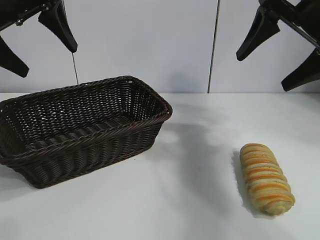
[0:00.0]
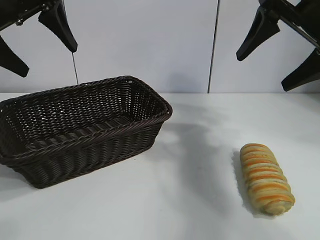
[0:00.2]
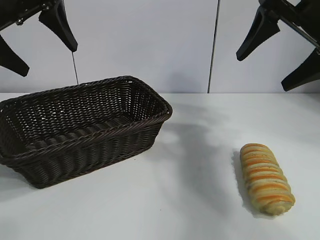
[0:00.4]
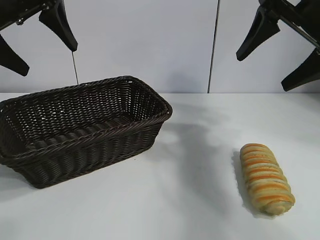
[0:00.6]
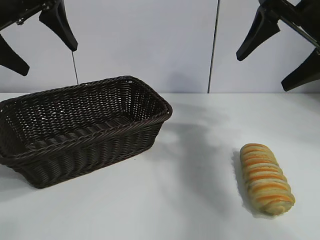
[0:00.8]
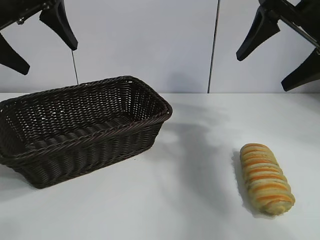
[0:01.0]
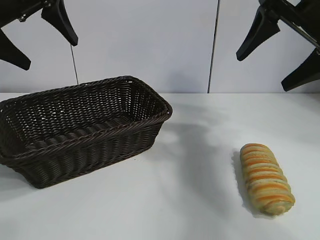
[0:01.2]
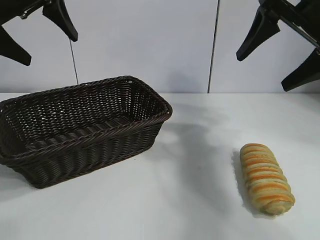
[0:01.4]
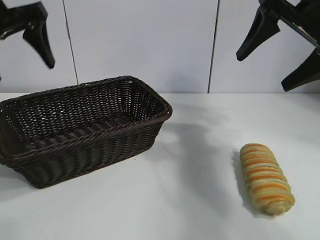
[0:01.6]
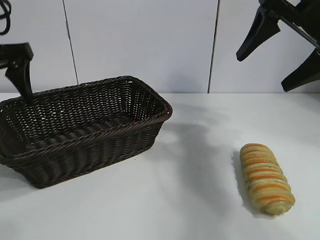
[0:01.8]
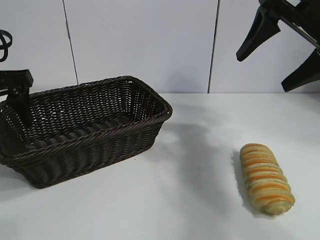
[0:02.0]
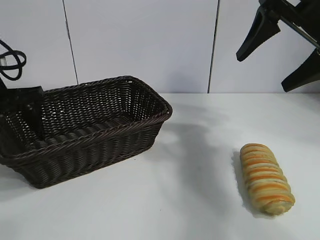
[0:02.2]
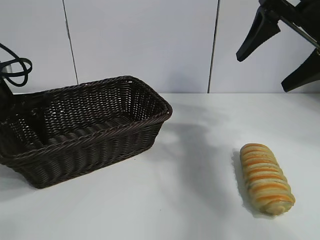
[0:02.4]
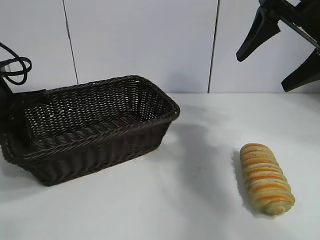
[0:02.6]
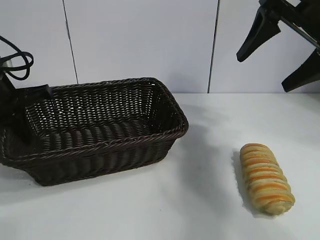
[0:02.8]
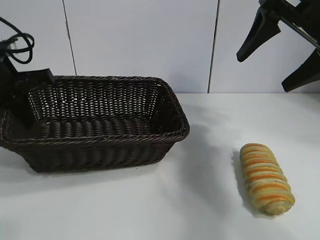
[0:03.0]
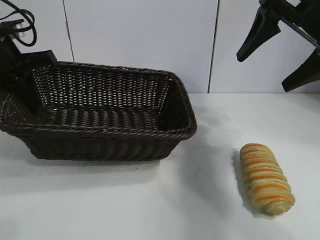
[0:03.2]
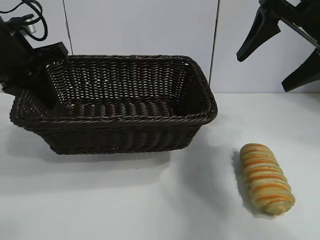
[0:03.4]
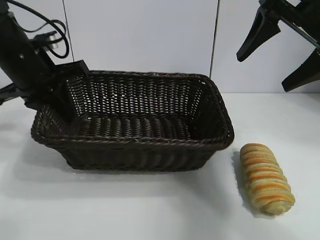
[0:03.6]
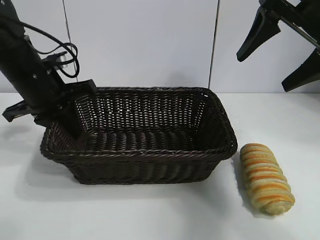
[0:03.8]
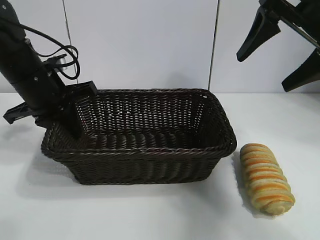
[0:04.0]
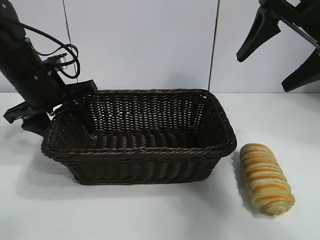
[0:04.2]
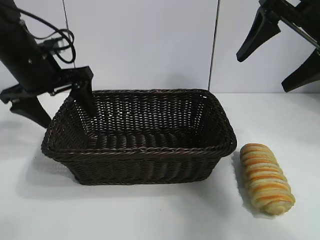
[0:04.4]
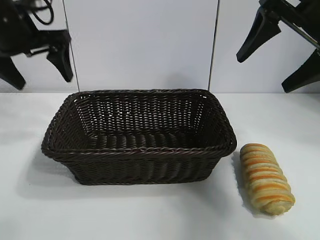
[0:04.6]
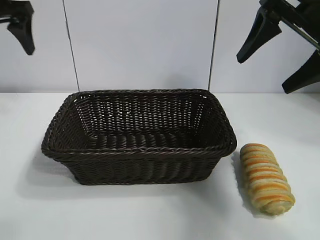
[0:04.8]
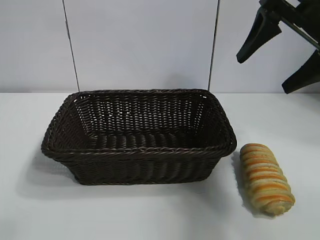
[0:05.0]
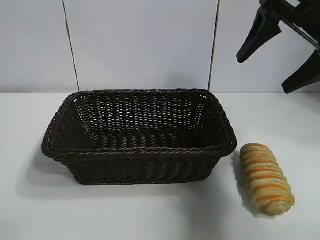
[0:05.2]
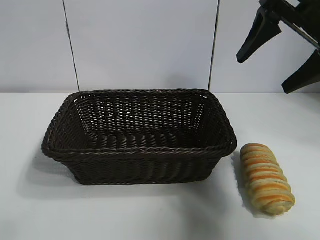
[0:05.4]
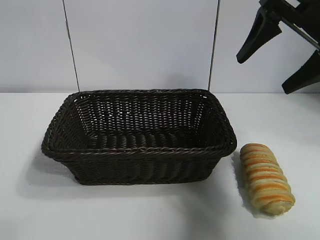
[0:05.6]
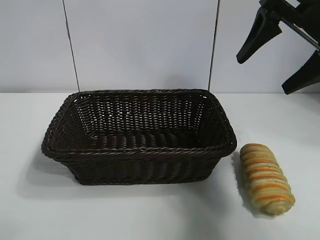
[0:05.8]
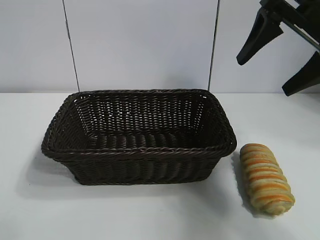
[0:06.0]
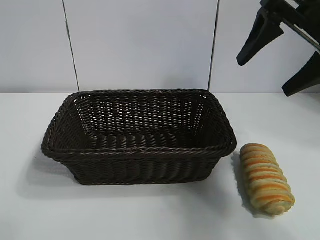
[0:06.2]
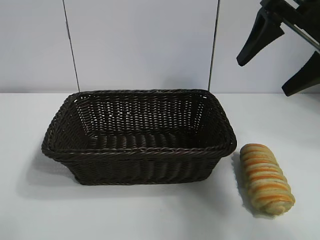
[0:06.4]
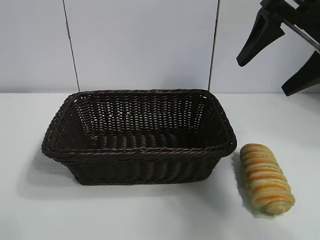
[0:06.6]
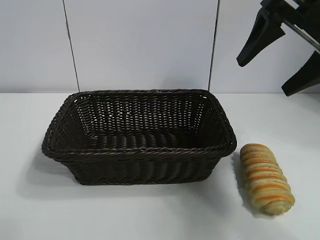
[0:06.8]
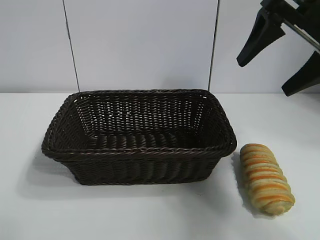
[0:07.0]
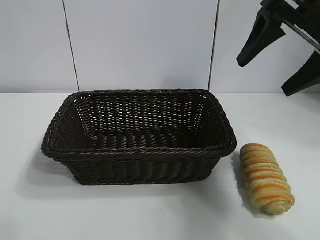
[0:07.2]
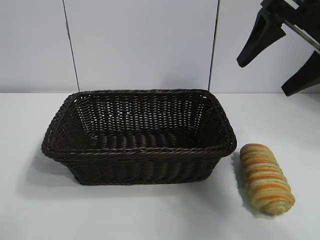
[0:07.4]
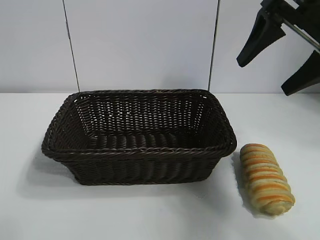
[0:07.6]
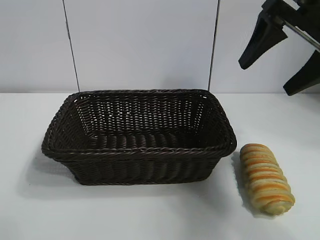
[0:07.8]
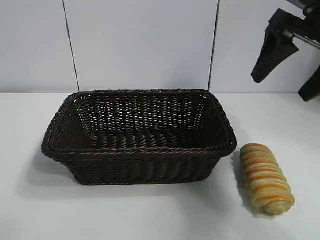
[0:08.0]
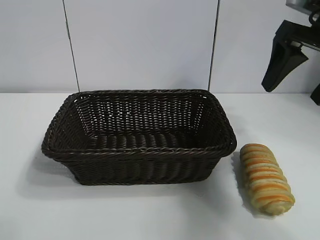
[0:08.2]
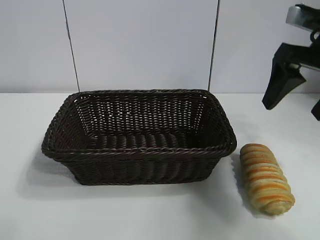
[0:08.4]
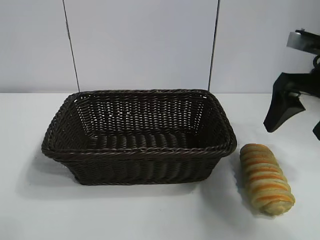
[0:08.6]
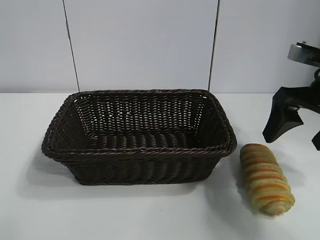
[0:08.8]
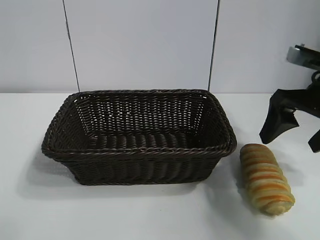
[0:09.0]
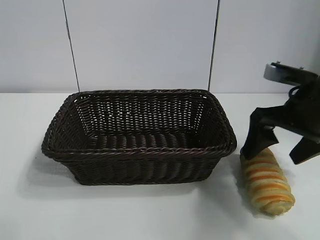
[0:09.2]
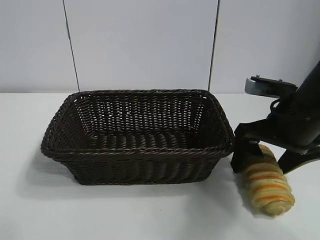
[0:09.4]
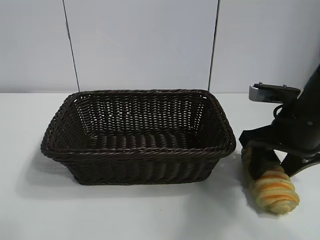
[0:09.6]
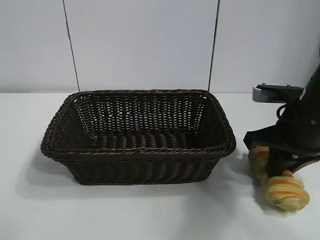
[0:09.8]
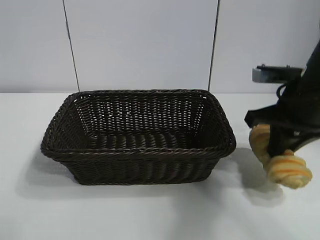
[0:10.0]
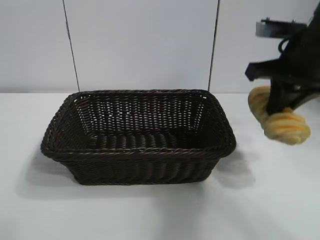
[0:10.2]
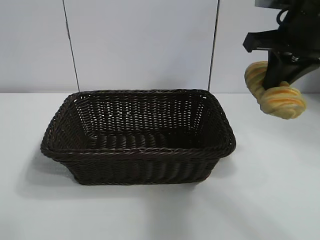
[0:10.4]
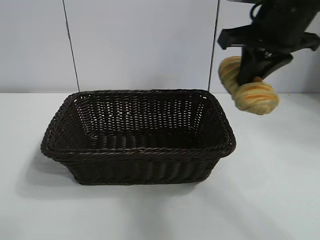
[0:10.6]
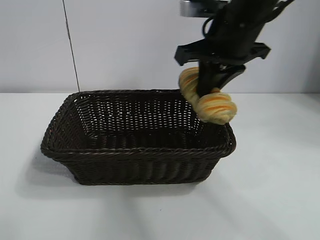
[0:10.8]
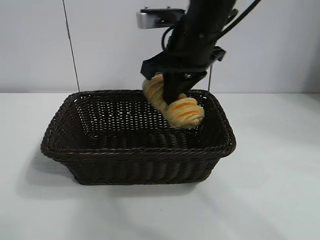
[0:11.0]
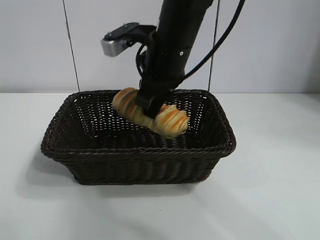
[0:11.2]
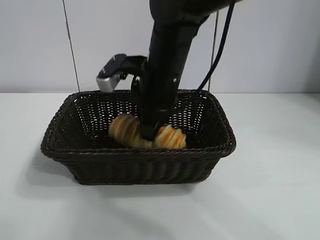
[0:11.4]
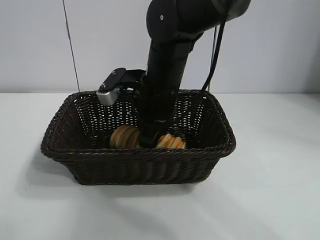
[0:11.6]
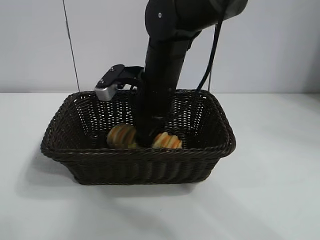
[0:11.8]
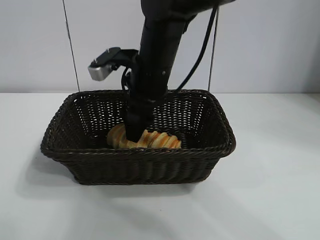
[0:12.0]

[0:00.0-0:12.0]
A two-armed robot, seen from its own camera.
Task of the whole recording: pick up the long bread and put it into the basket.
Step, 0:01.2 to 0:02.4: Grasp the basket with the left gripper.
Step, 0:02.6 to 0:04.2: Place the basket in the center of the table with the left gripper.
Step, 0:04.4 to 0:09.6: Grasp the long bread with right gripper.
